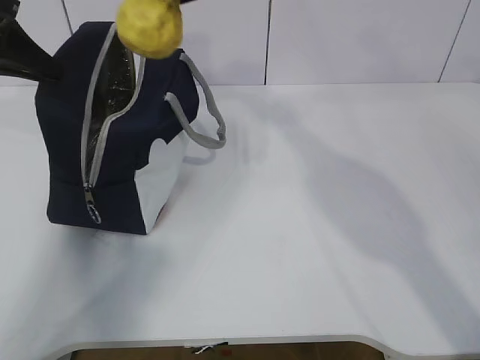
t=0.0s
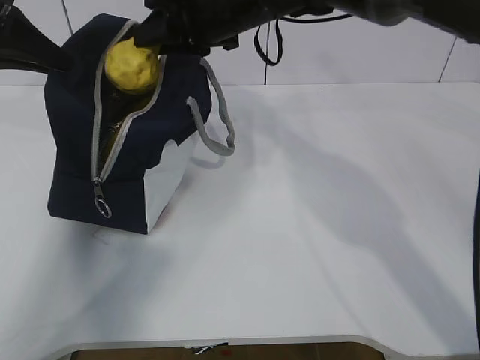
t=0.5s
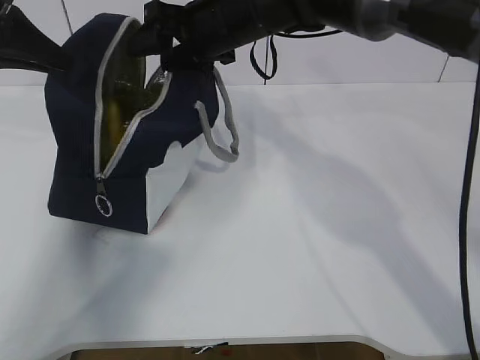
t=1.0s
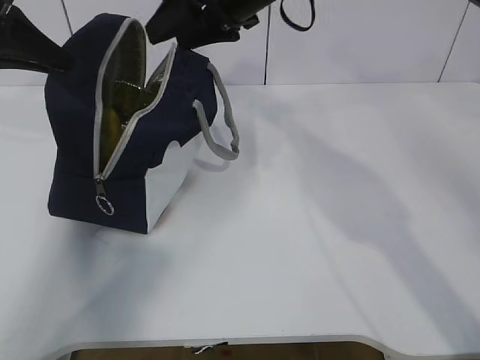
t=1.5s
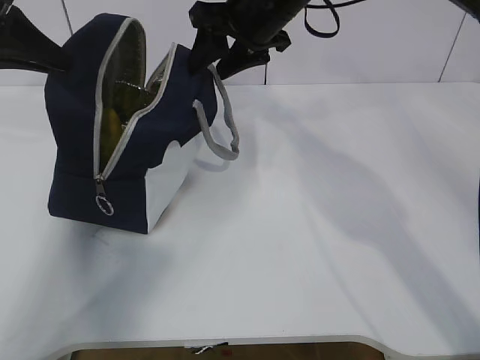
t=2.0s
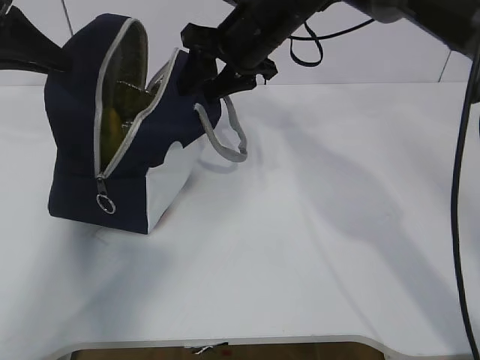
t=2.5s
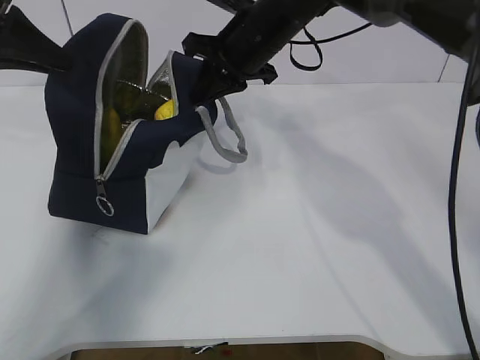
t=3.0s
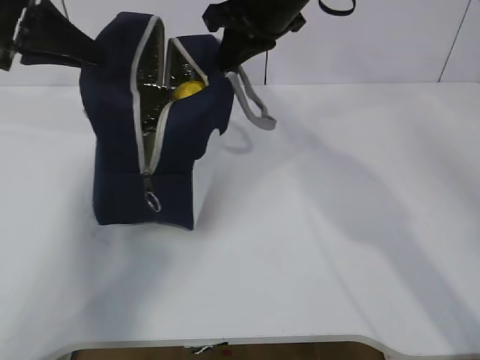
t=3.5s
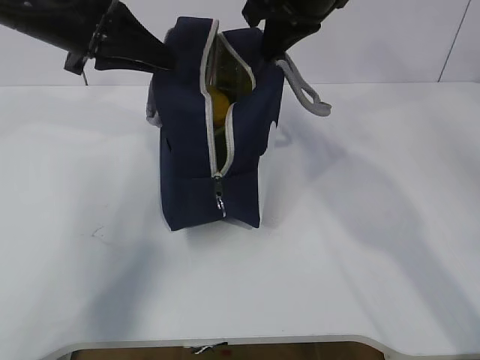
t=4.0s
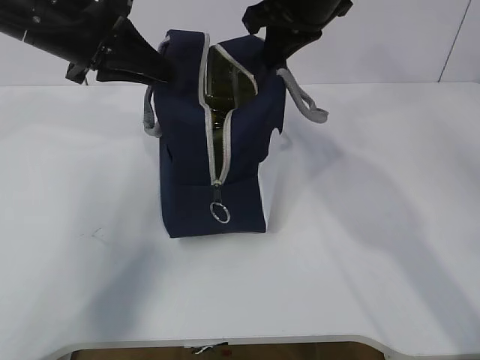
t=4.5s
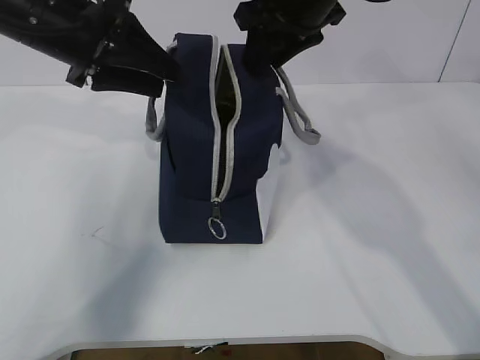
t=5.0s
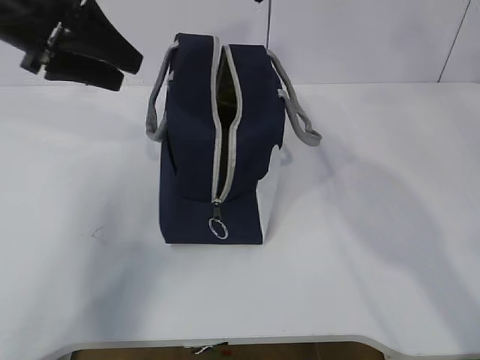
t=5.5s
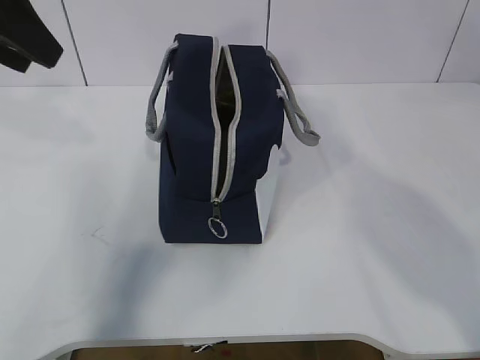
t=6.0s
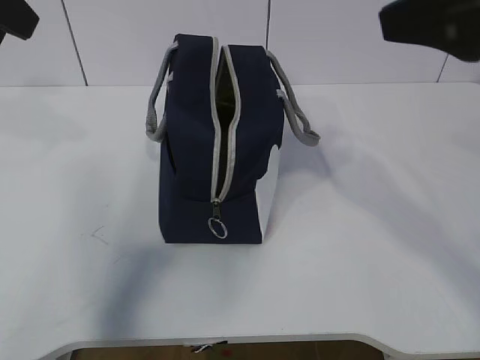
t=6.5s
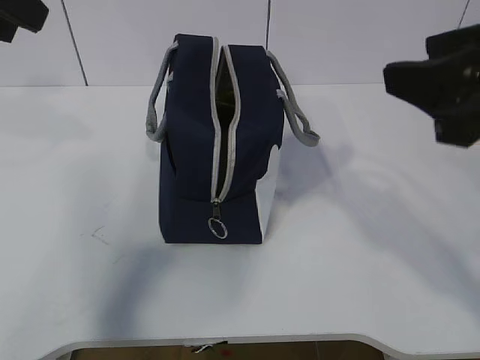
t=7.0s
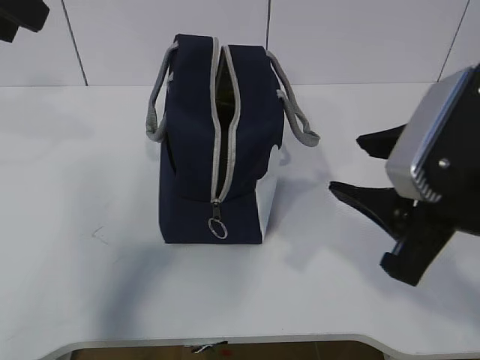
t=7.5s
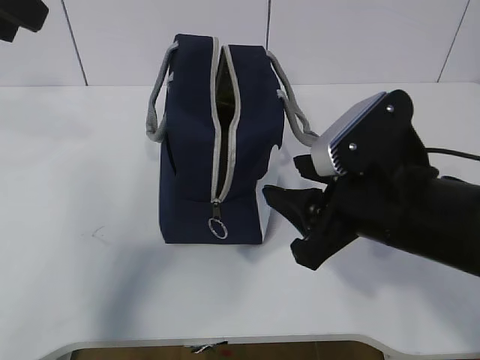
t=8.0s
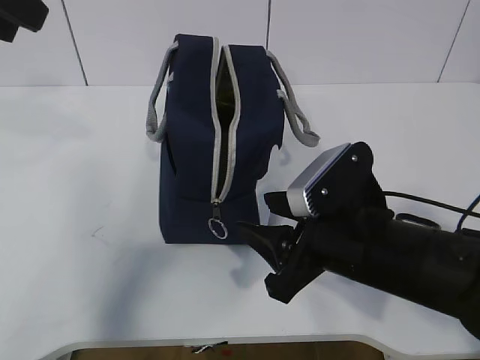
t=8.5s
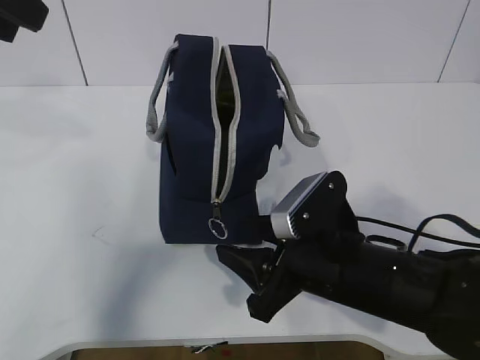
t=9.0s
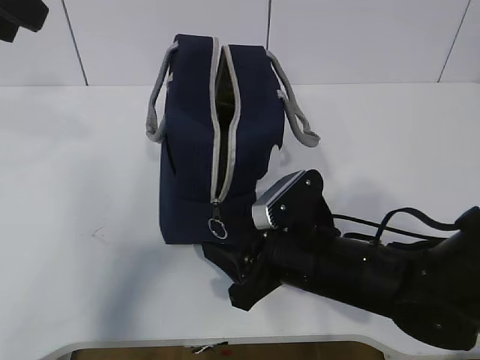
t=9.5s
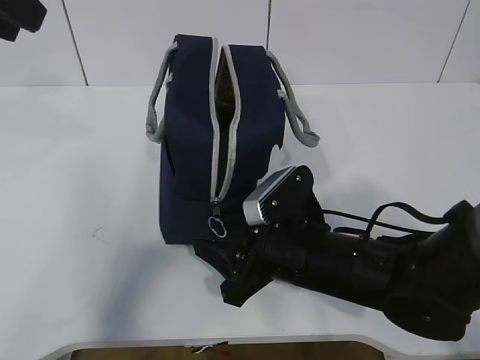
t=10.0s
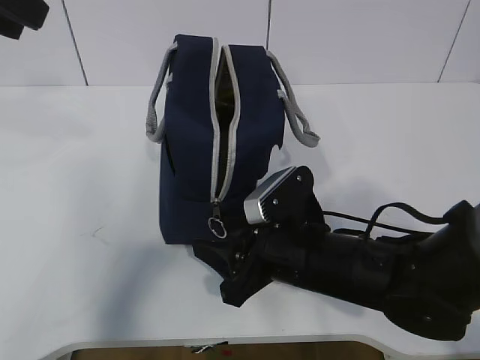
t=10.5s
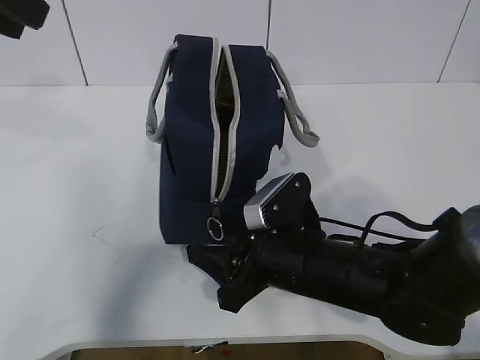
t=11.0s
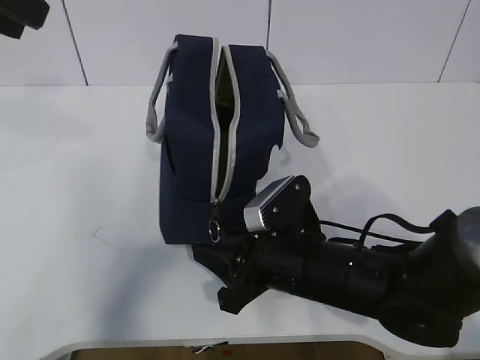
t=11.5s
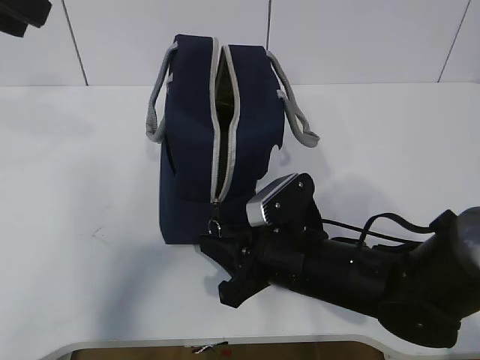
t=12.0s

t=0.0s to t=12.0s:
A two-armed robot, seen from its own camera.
Step, t=0.0s to t=1.5s: Place the pear into the package with the right gripper.
t=0.0s to t=2.0s: The right gripper moves downward and forward, some 10 cm.
t=2.0s to t=4.0s: The right gripper moves roughly 5 cm, and closes its fingers. Meanwhile the left gripper heads to the right, covering roughly 10 cm.
t=4.0s to t=6.0s: The right gripper travels upward and backward by roughly 15 cm, and opens its fingers. The left gripper is displaced upward, backward and to the left by about 10 cm, and opens.
t=6.0s to t=8.0s: The right gripper heads downward and backward, covering some 25 cm.
t=8.0s to t=10.0s: The right gripper is displaced downward and to the left by roughly 10 cm.
t=10.0s to t=12.0s: The right gripper closes.

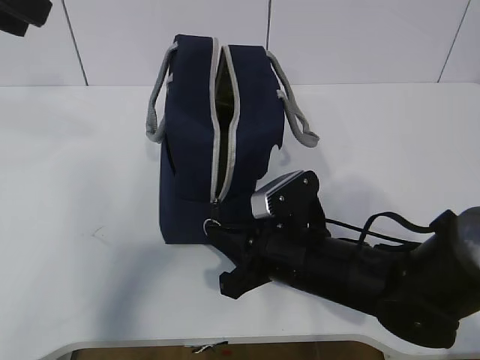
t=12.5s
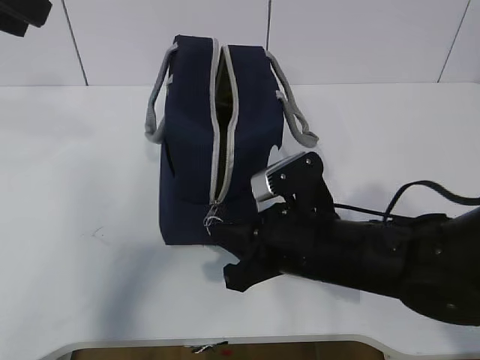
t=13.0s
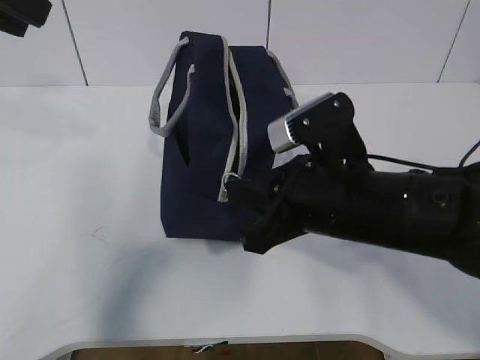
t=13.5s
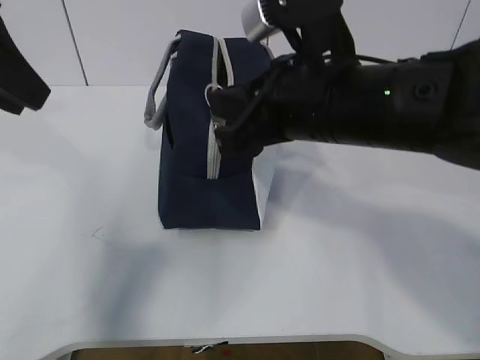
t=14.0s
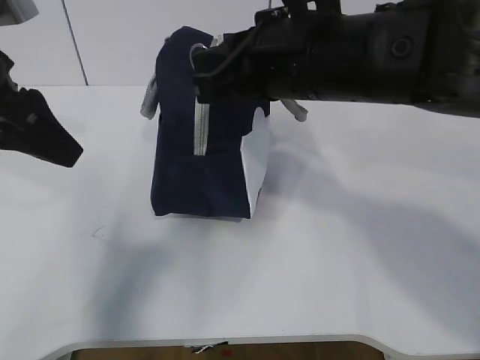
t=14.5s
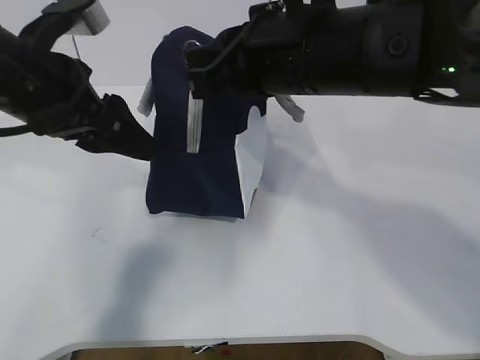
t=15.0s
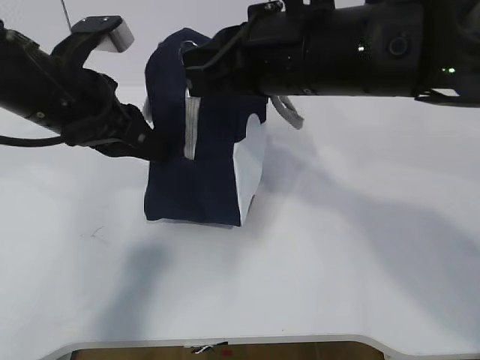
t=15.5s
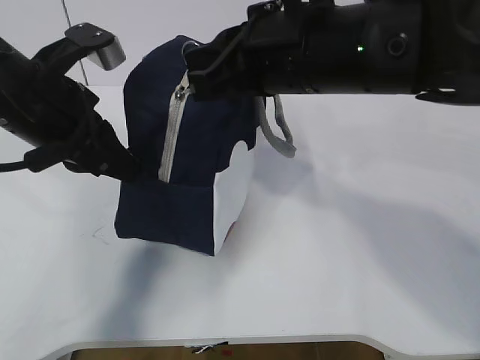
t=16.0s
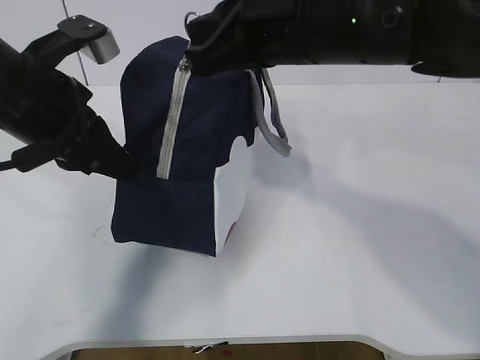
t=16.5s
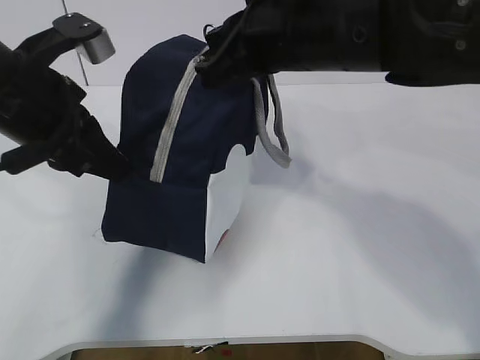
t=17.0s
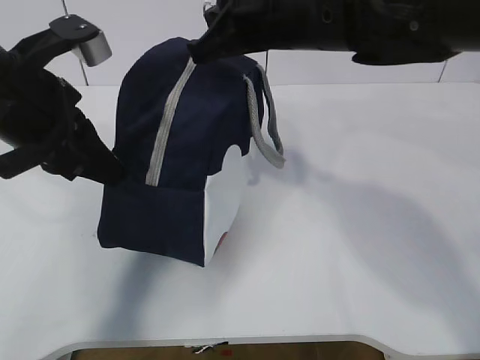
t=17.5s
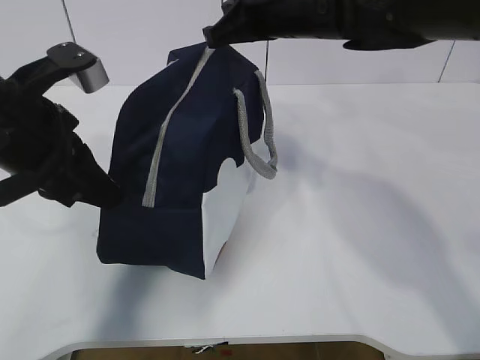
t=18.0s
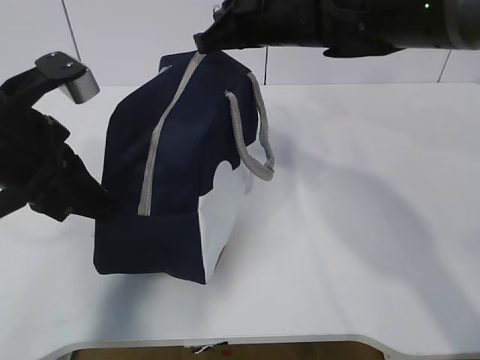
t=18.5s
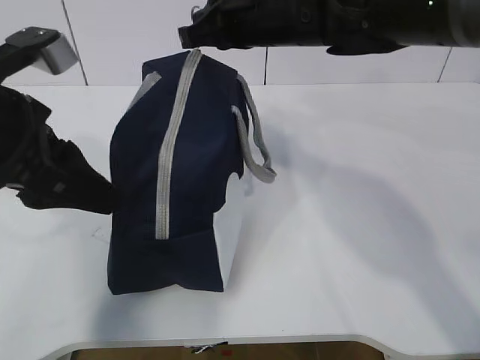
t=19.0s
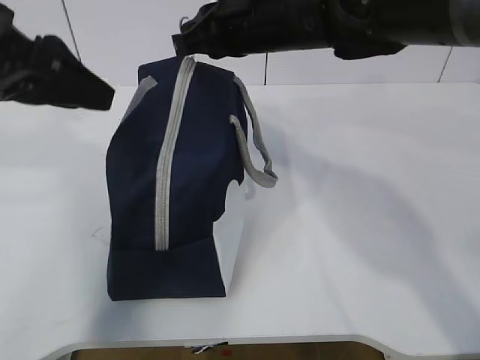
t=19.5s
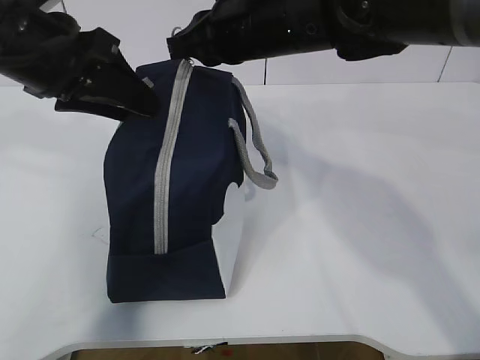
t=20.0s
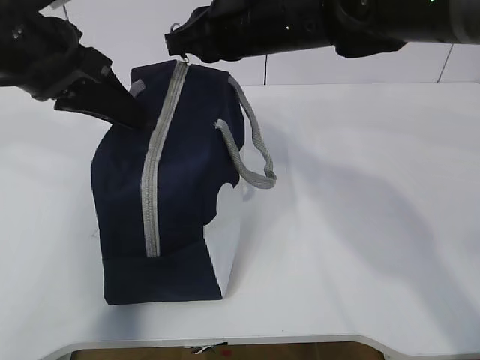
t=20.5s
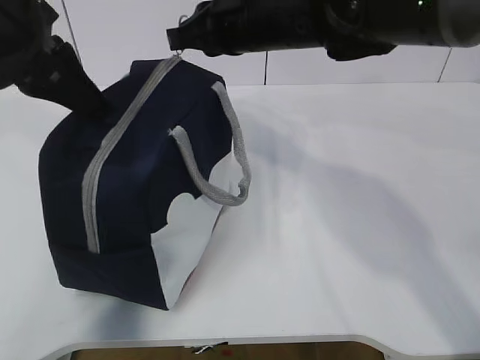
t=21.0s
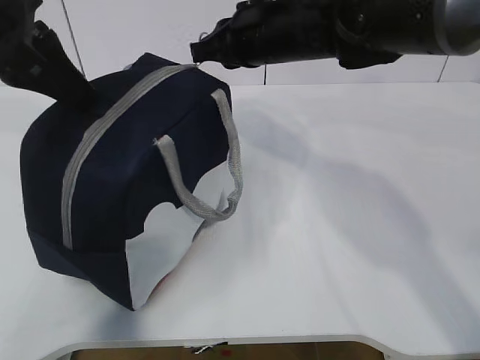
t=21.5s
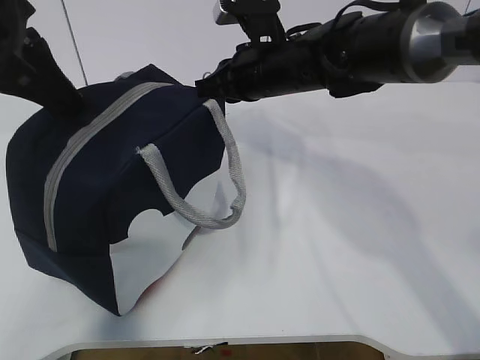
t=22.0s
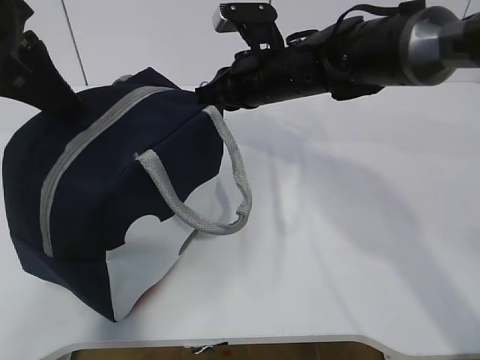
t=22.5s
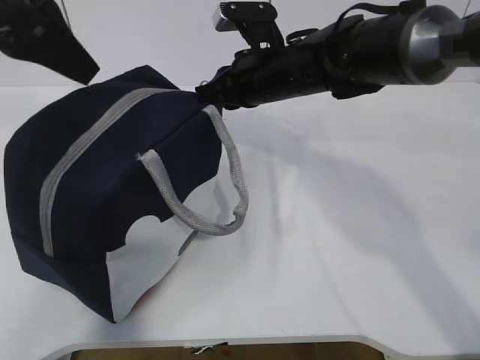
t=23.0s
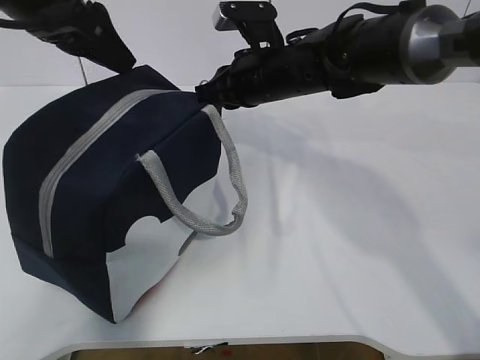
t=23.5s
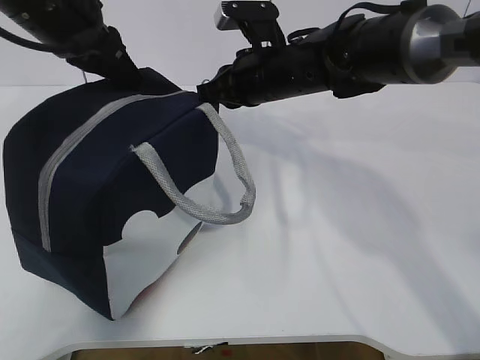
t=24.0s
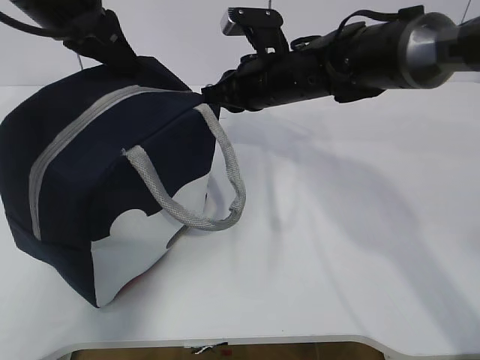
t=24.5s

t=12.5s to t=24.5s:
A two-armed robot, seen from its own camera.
t=12.5s to t=14.5s: The right gripper shifts roughly 20 cm upward. Meanwhile the left gripper goes roughly 10 cm downward.
t=14.5s to t=16.5s: The left gripper shifts by approximately 5 cm, and closes up.
t=16.5s to t=18.5s: The right gripper heads forward, covering approximately 10 cm.
t=18.5s to t=20.5s: The left gripper travels forward by some 5 cm, and opens and closes again.
t=20.5s to t=22.5s: The right gripper goes roughly 10 cm downward.
t=22.5s to t=24.5s: The left gripper heads forward, covering approximately 10 cm, and opens and closes again.

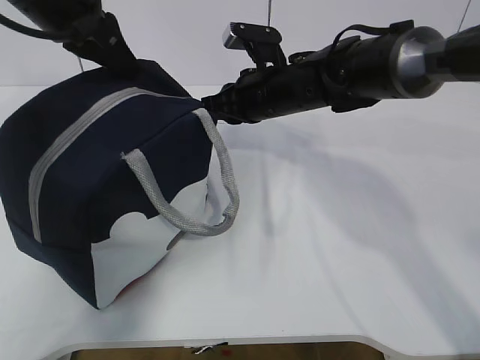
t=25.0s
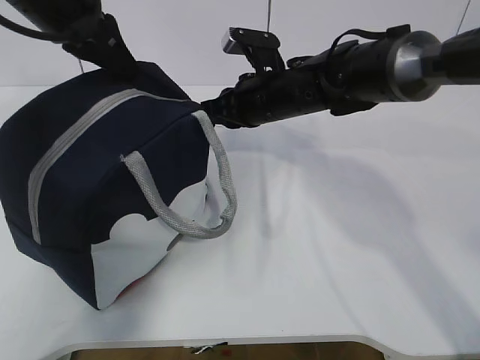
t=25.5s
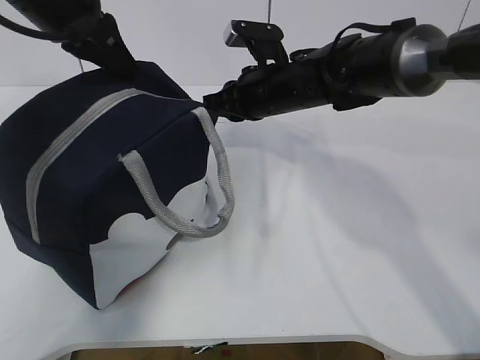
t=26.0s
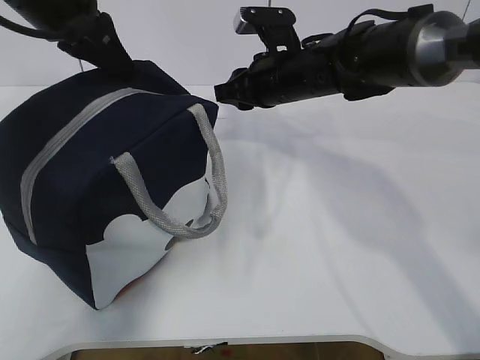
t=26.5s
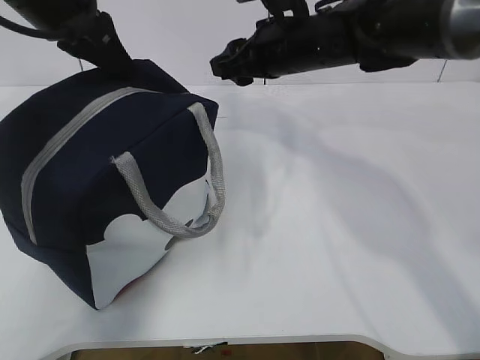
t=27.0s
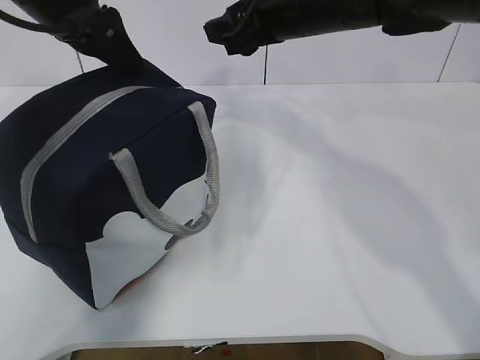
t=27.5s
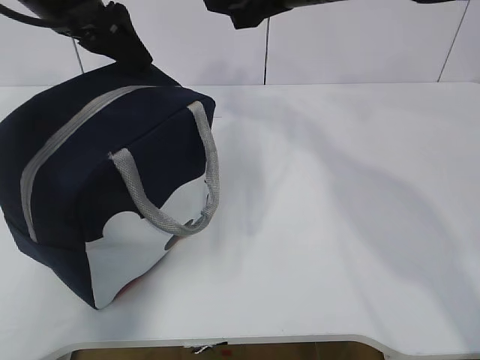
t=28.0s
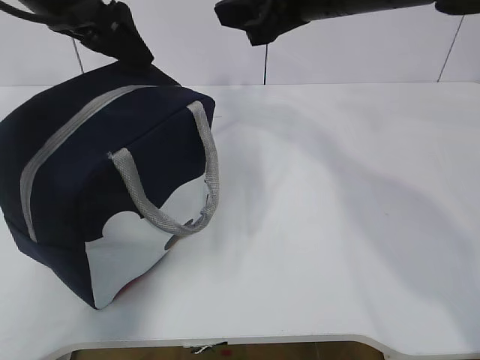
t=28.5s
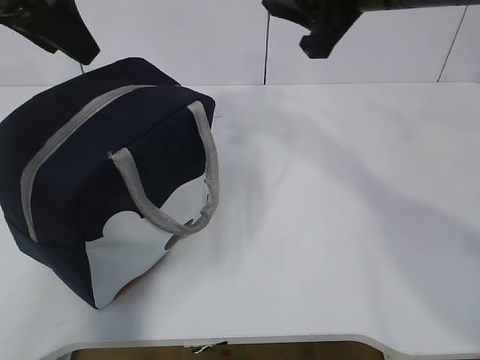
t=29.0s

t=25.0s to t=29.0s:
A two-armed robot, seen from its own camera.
t=25.0s to t=27.0s: The right gripper travels upward by some 5 cm, and opens up.
t=27.0s to t=29.0s: The right gripper heads backward and upward, covering roughly 15 cm. Meanwhile the left gripper moves about 5 cm, and opens up.
